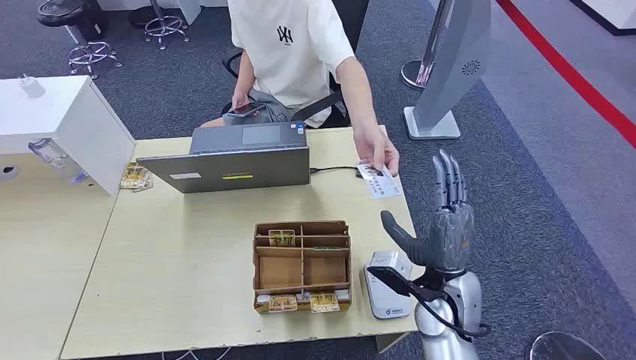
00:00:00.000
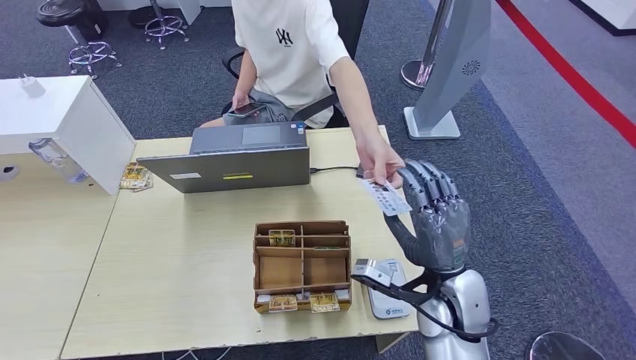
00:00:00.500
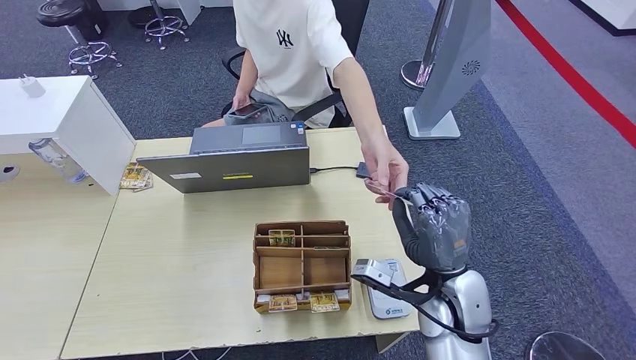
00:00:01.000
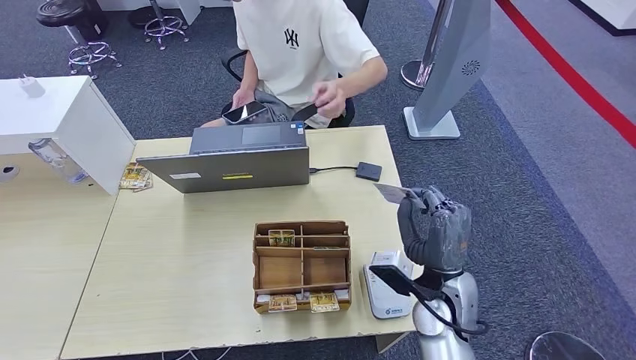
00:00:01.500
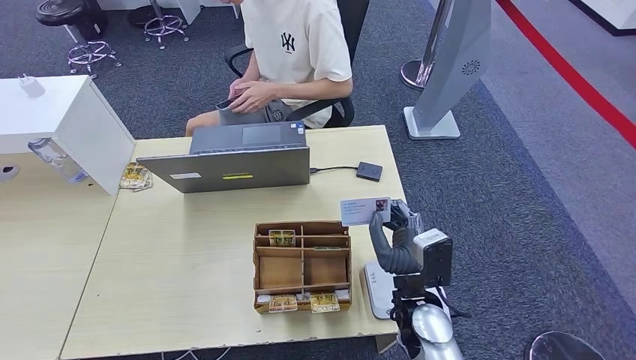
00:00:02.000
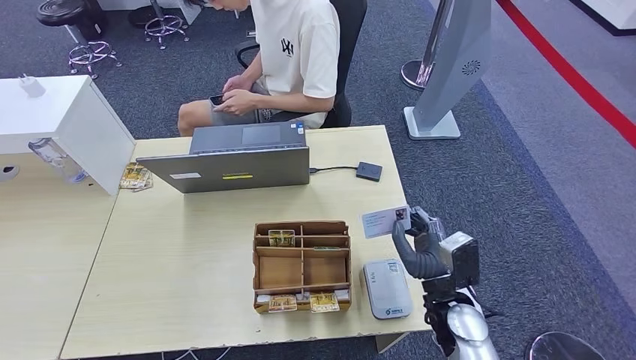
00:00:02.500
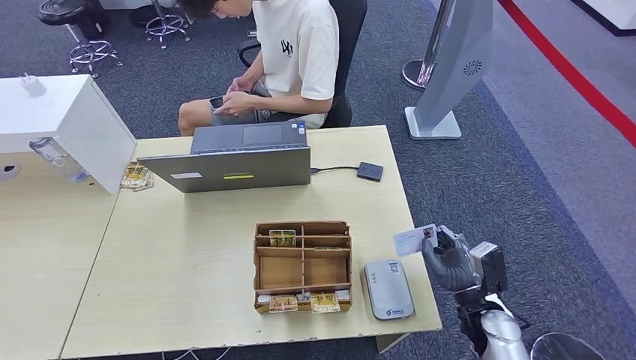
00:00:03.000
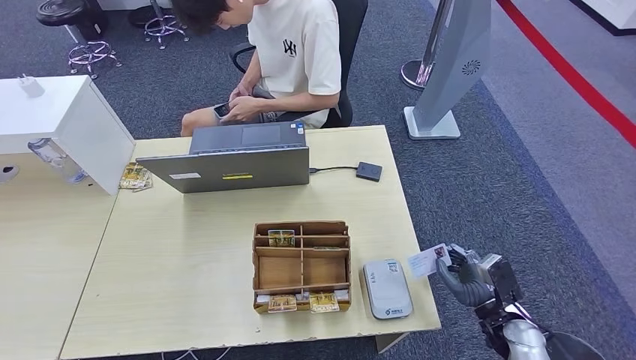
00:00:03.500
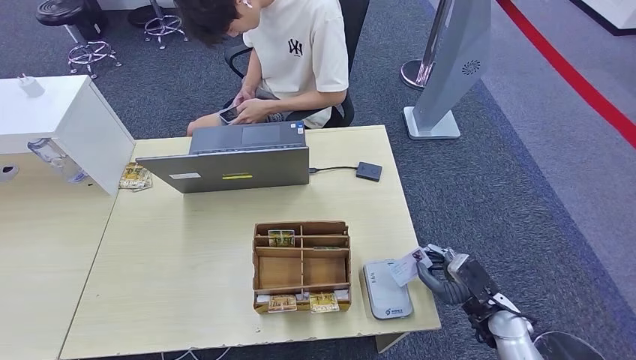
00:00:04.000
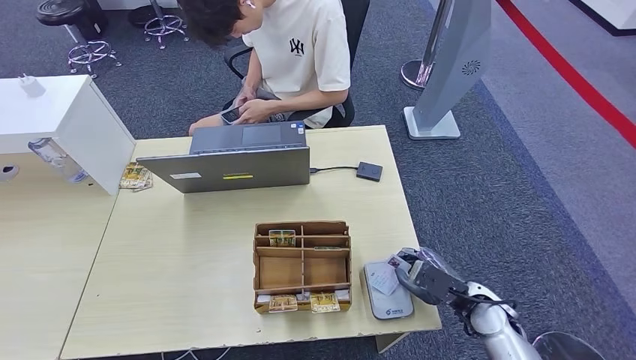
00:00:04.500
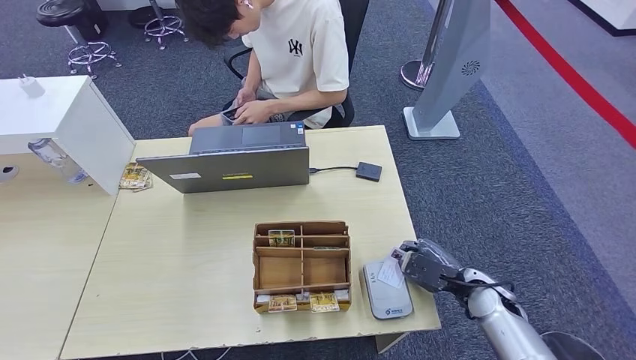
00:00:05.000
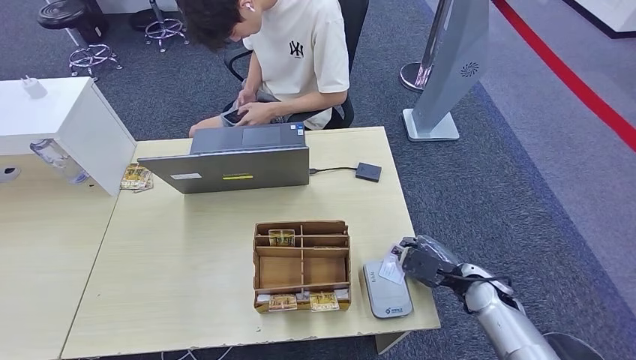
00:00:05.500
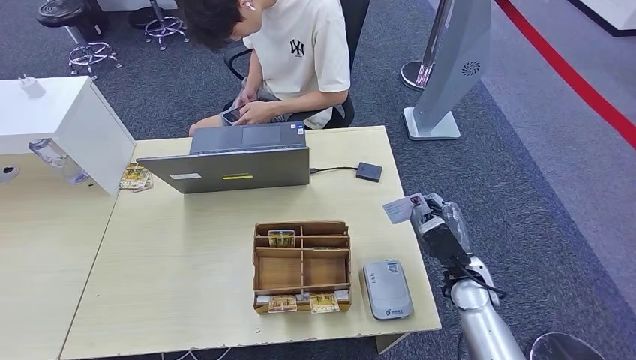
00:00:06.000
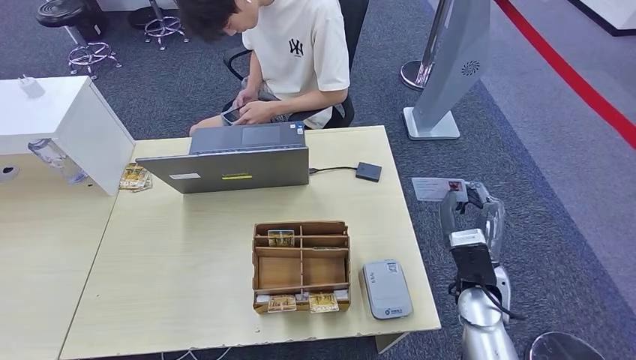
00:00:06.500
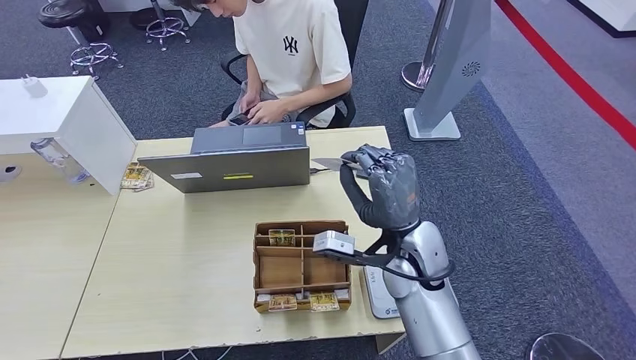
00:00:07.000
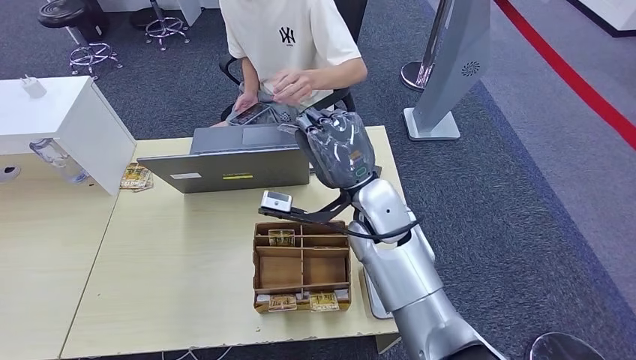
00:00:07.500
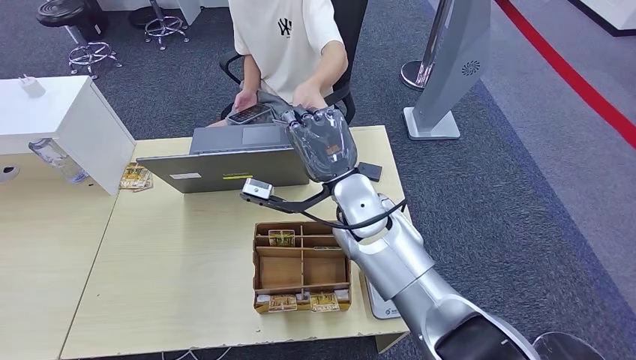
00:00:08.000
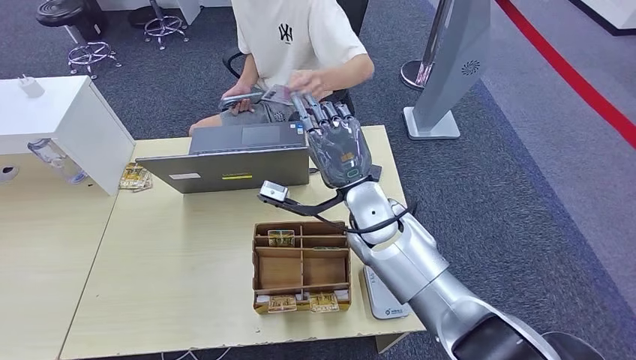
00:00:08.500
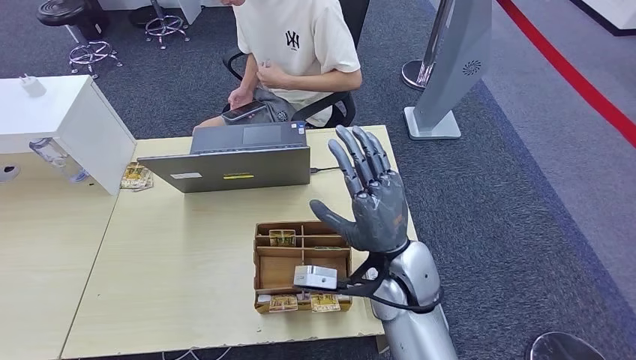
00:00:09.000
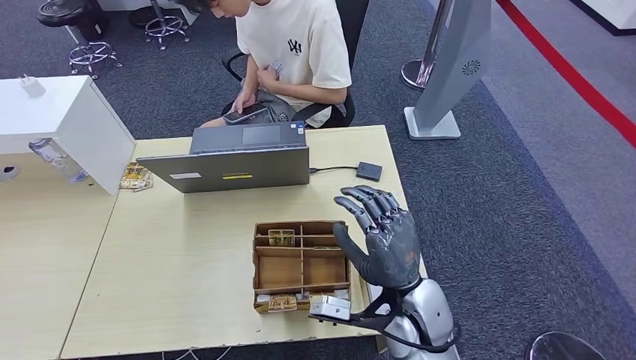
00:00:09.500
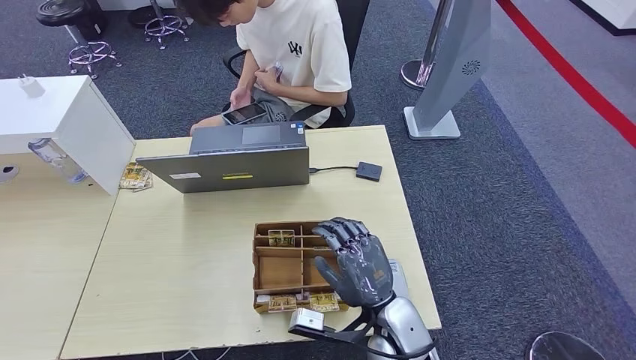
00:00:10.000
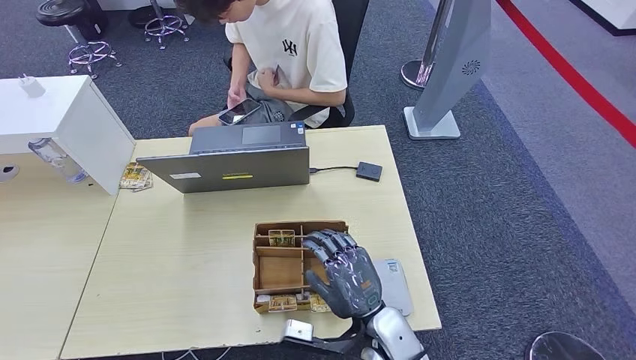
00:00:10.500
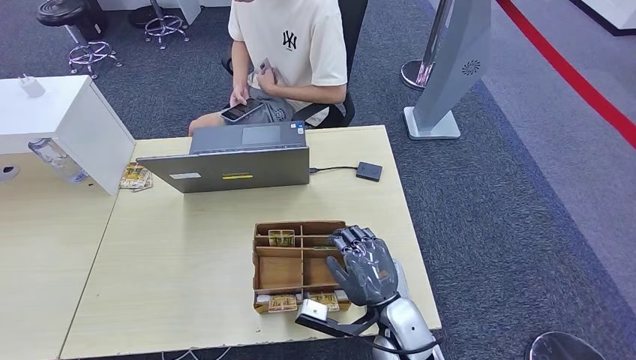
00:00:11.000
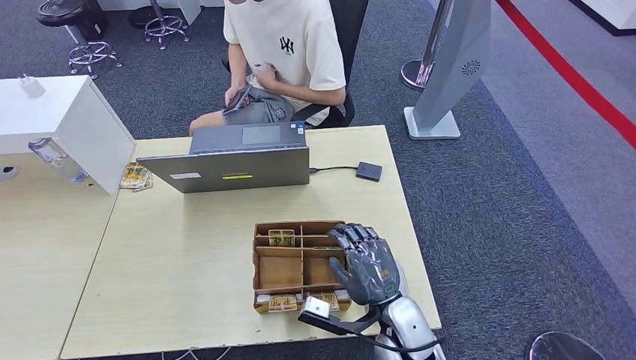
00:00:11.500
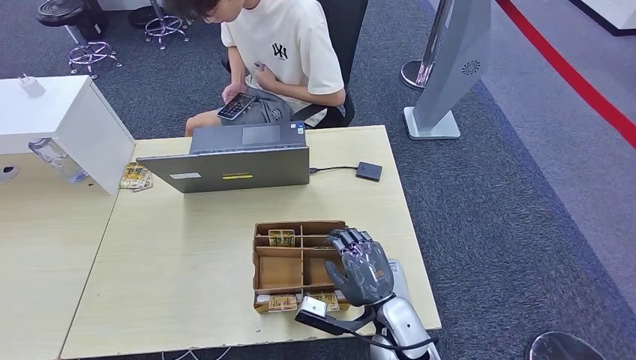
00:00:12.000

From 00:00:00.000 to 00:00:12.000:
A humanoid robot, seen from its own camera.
Step, from 00:00:00.000 to 00:00:02.000: Take the ID card from the person's hand.
Step, from 00:00:02.500 to 00:00:06.000: Place the ID card on the card reader.
Step, from 00:00:07.000 to 00:00:09.000: Hand the ID card to the person.
From 00:00:02.000 to 00:00:04.000: The right hand heads to the right and downward, covering some 20 cm.
From 00:00:04.000 to 00:00:06.000: The right hand is displaced forward and to the left by about 10 cm.
From 00:00:06.000 to 00:00:08.000: The left hand shifts some 5 cm forward. The right hand travels to the left and upward by some 30 cm.
From 00:00:08.000 to 00:00:10.000: The right hand heads backward and downward, covering approximately 20 cm.
From 00:00:10.000 to 00:00:12.000: The hands stay close to where they were, moving slightly.

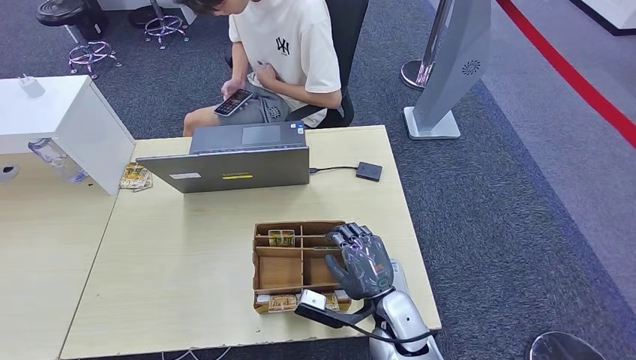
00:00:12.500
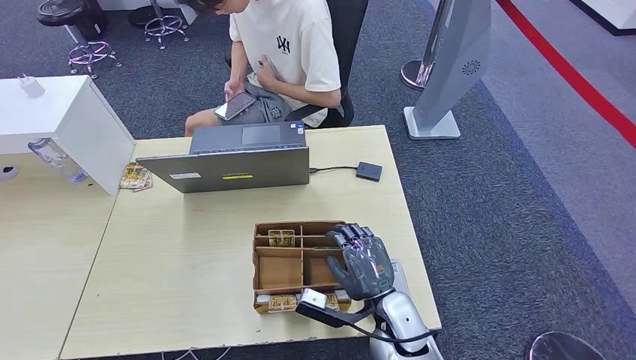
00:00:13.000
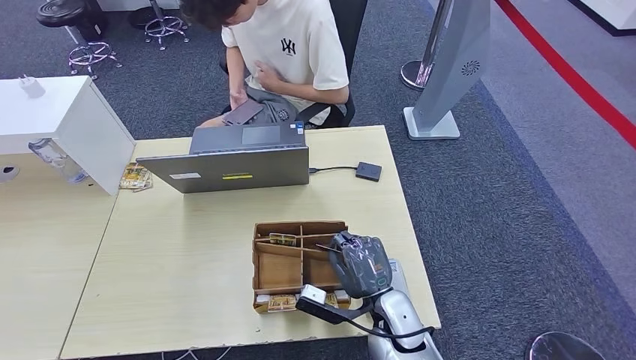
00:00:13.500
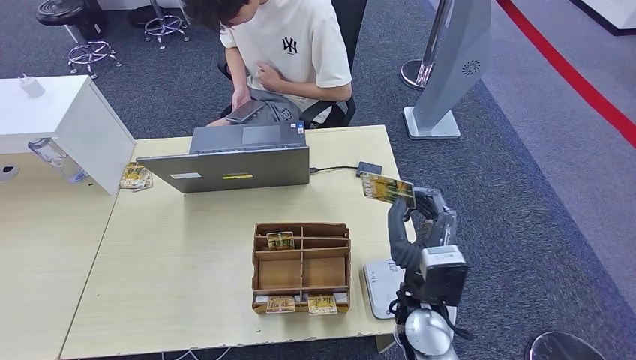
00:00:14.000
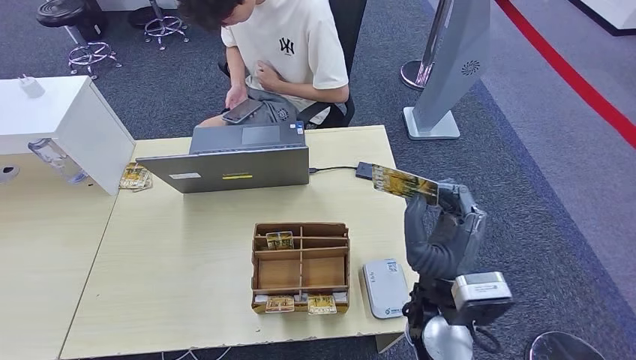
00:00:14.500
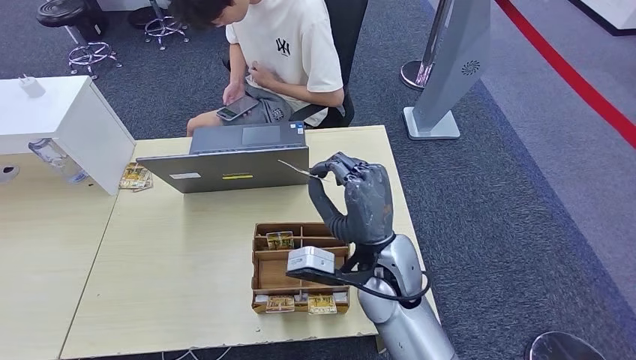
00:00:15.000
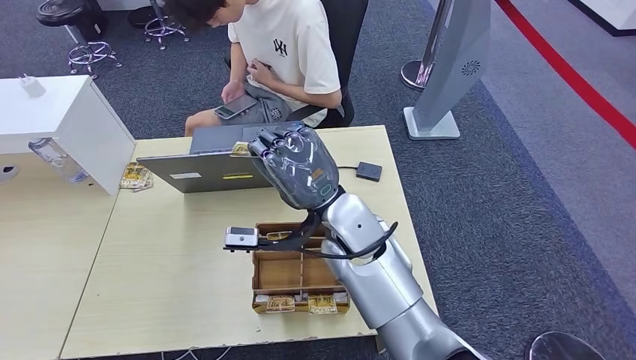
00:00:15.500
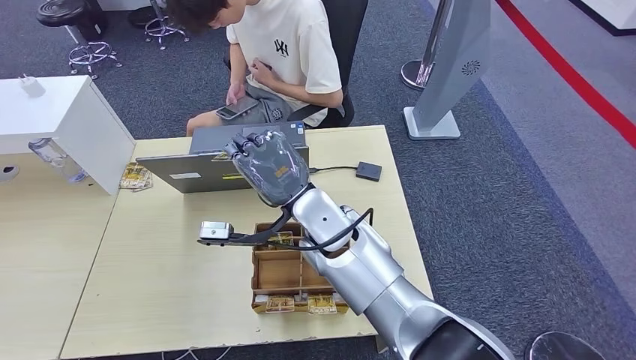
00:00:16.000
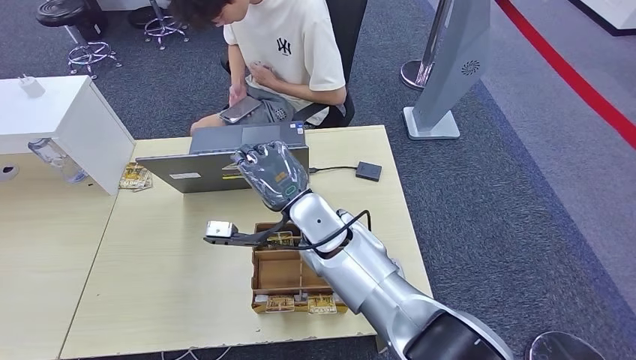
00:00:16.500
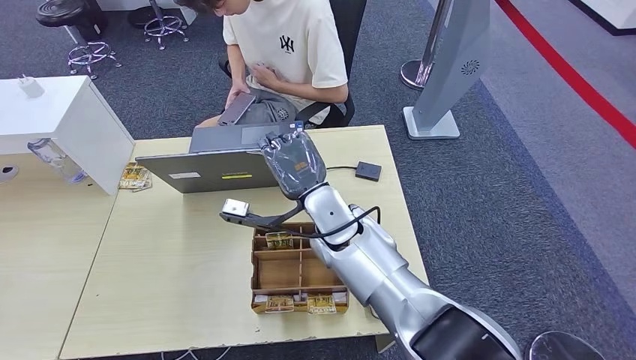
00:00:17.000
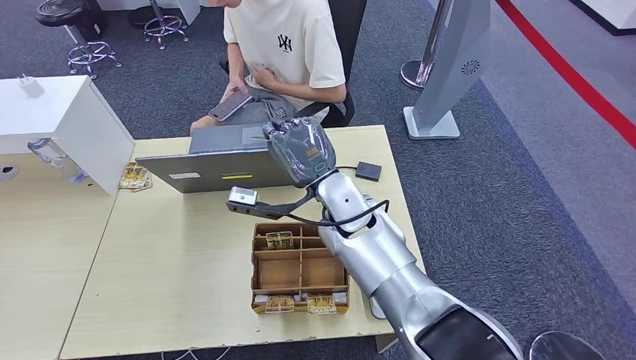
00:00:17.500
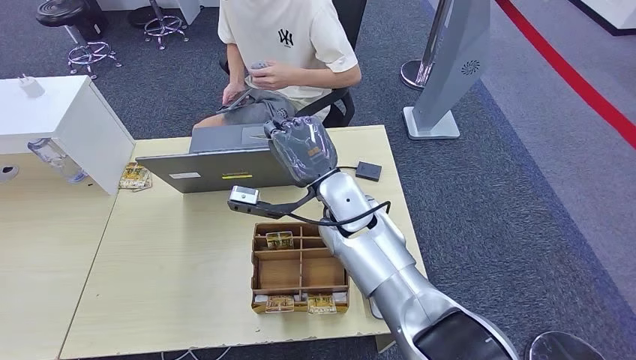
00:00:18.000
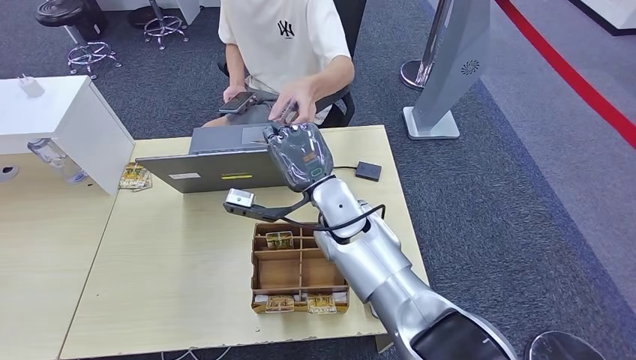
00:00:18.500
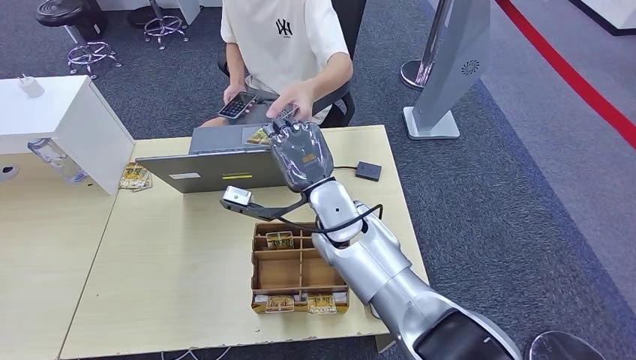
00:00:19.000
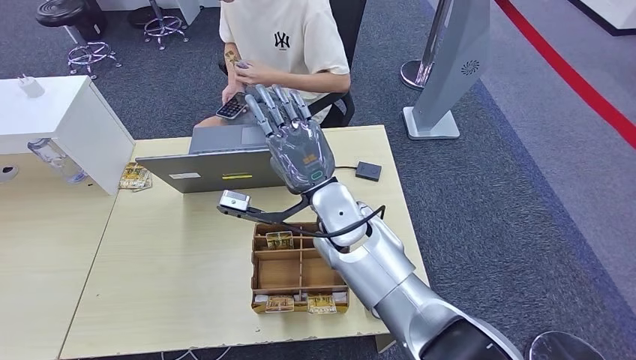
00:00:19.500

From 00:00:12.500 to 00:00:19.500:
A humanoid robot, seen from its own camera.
Step, from 00:00:14.000 to 00:00:14.500: Pick up the room key from the key card box.
Step, from 00:00:15.000 to 00:00:19.500: Hand the room key to the person.
From 00:00:12.500 to 00:00:14.500: The right hand shifts roughly 10 cm upward.
From 00:00:14.500 to 00:00:16.000: The right hand goes roughly 20 cm to the left and forward.
From 00:00:16.000 to 00:00:19.500: The hands make only small movements.

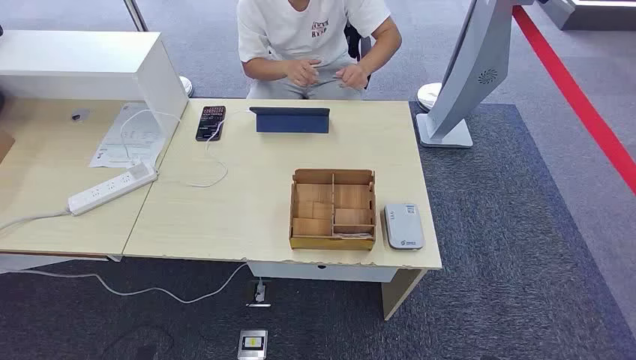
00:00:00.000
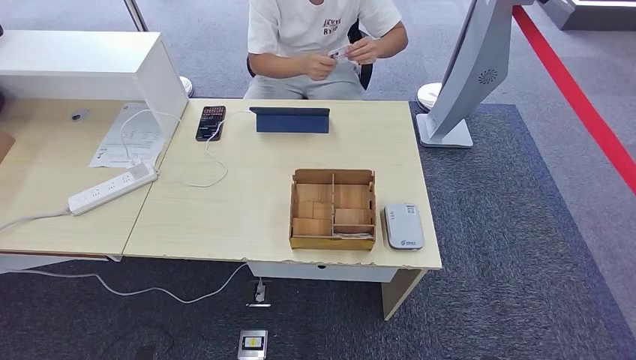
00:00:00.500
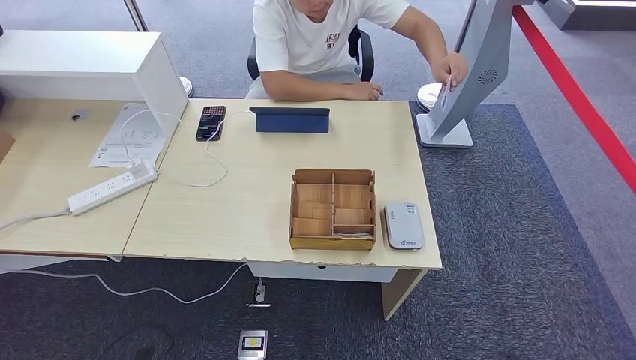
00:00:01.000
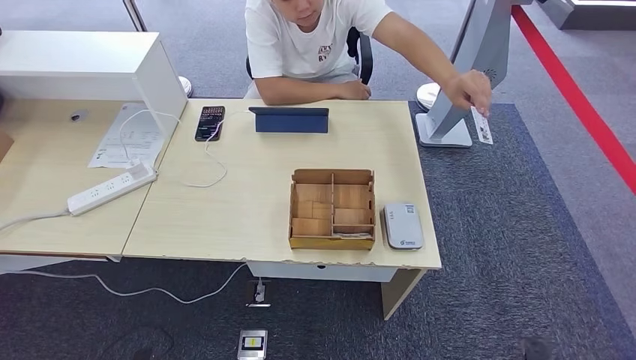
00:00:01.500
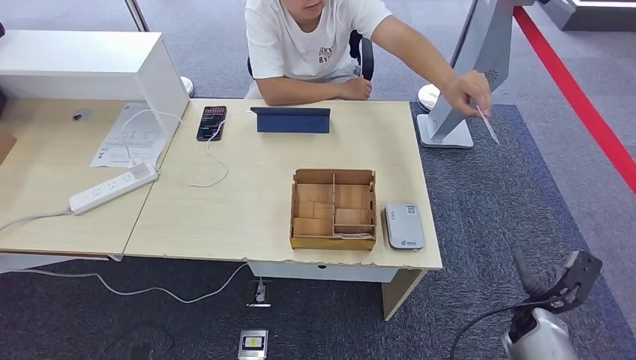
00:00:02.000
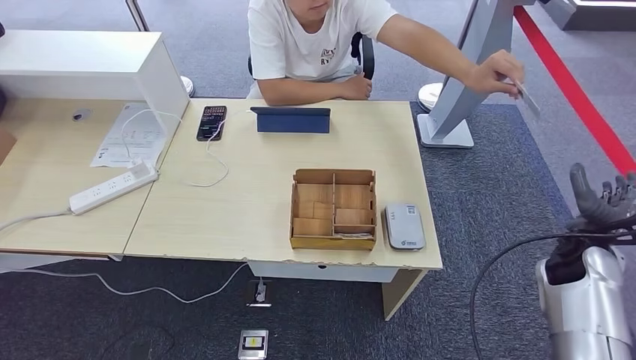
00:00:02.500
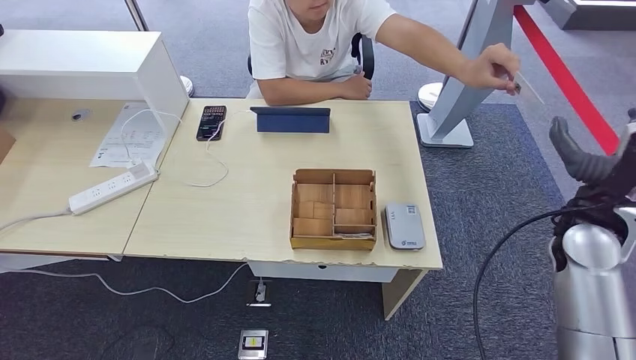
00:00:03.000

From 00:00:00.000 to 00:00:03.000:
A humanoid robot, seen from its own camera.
From 00:00:01.500 to 00:00:03.000: The right hand is displaced upward and forward by some 40 cm.
